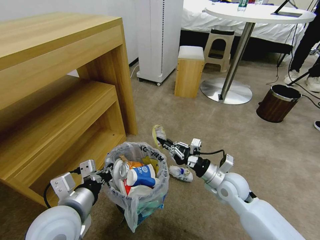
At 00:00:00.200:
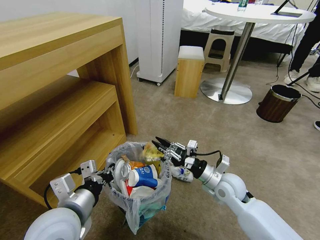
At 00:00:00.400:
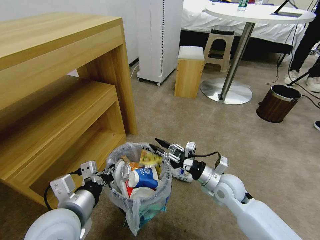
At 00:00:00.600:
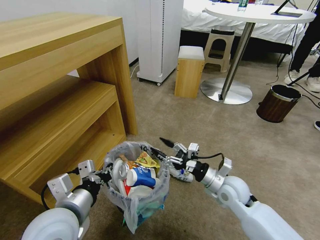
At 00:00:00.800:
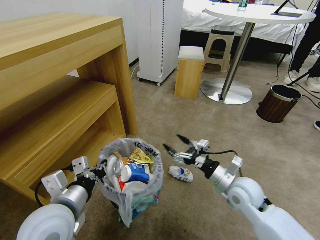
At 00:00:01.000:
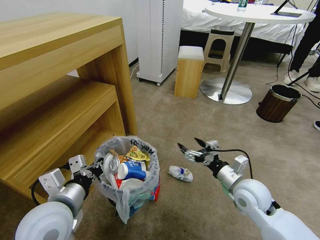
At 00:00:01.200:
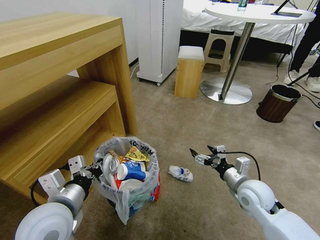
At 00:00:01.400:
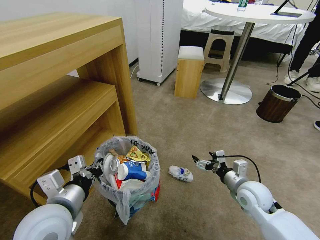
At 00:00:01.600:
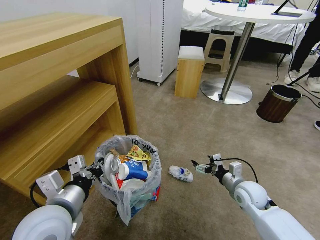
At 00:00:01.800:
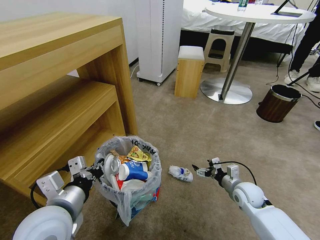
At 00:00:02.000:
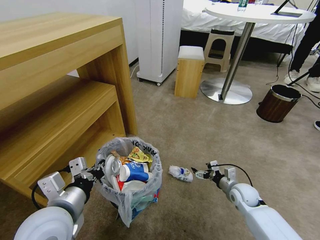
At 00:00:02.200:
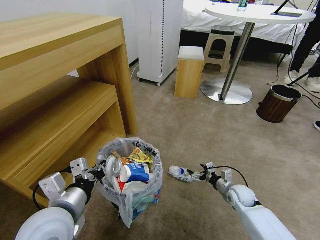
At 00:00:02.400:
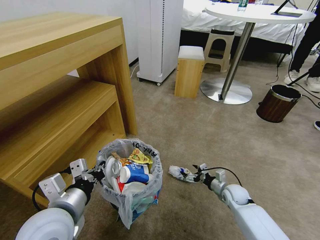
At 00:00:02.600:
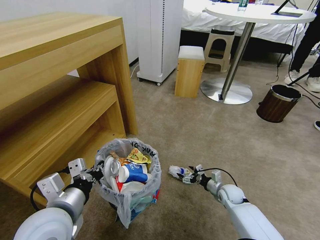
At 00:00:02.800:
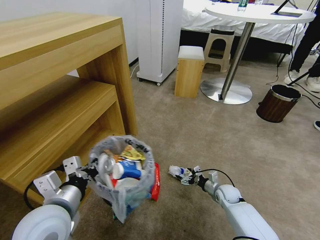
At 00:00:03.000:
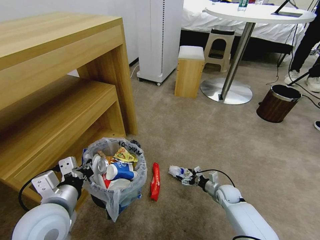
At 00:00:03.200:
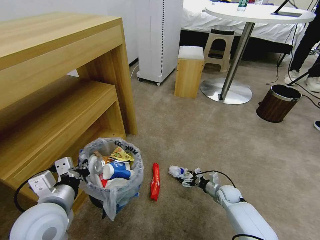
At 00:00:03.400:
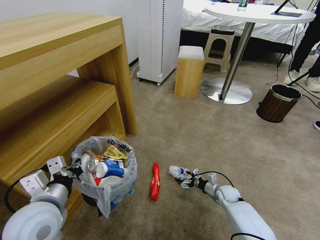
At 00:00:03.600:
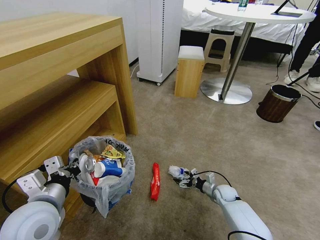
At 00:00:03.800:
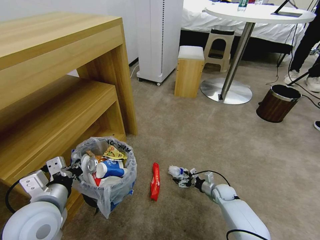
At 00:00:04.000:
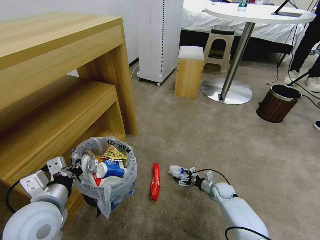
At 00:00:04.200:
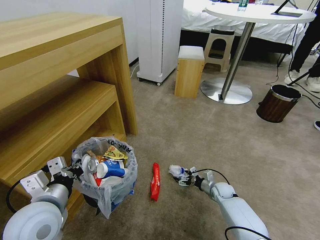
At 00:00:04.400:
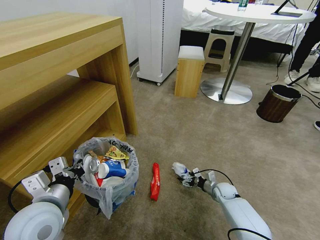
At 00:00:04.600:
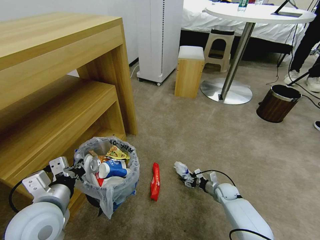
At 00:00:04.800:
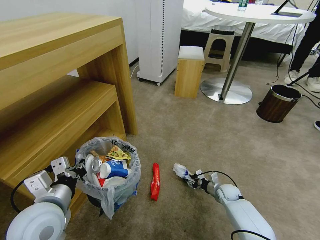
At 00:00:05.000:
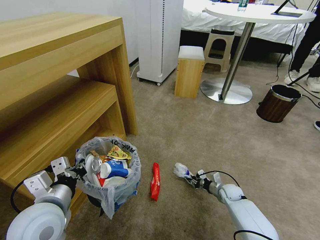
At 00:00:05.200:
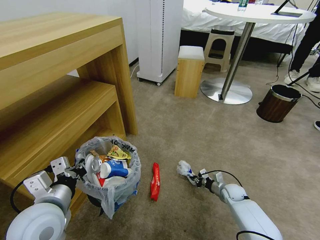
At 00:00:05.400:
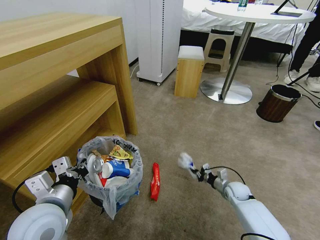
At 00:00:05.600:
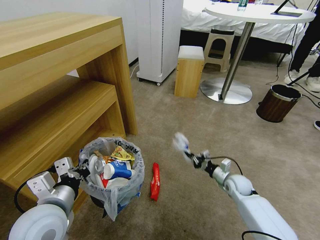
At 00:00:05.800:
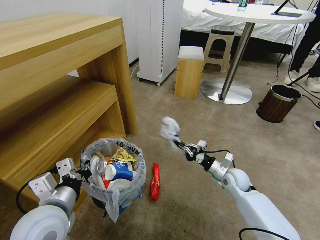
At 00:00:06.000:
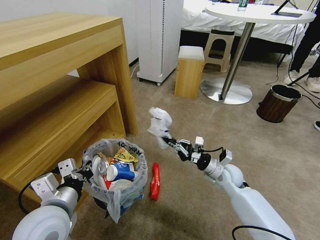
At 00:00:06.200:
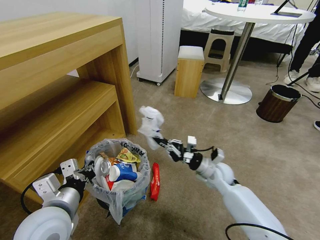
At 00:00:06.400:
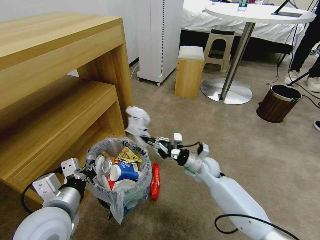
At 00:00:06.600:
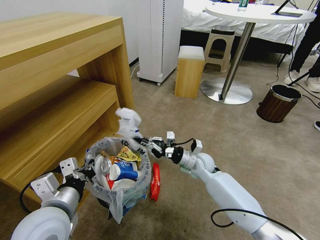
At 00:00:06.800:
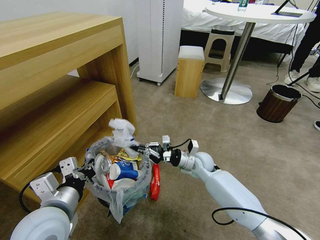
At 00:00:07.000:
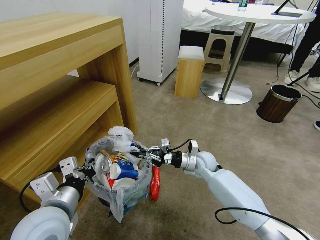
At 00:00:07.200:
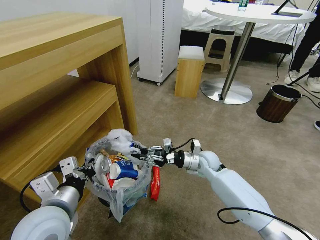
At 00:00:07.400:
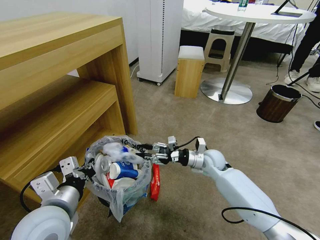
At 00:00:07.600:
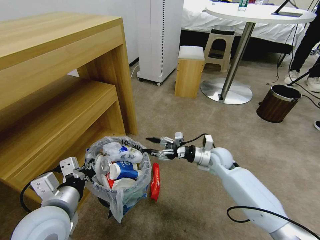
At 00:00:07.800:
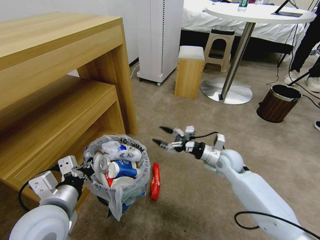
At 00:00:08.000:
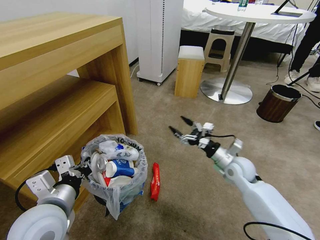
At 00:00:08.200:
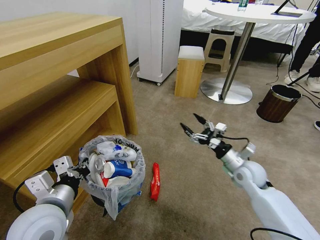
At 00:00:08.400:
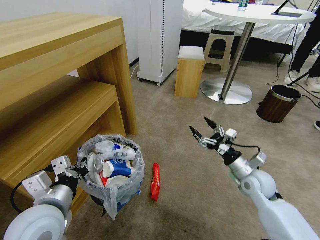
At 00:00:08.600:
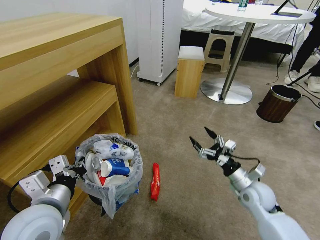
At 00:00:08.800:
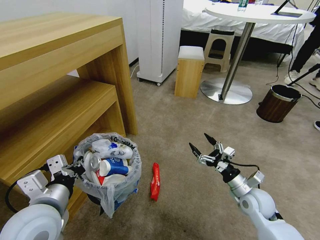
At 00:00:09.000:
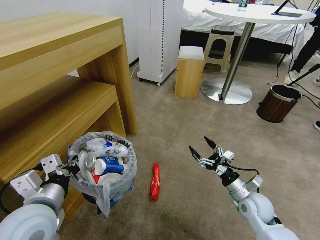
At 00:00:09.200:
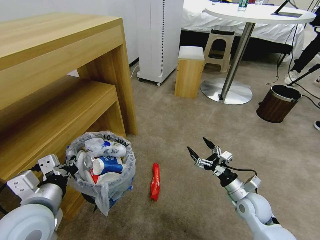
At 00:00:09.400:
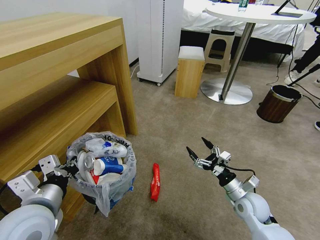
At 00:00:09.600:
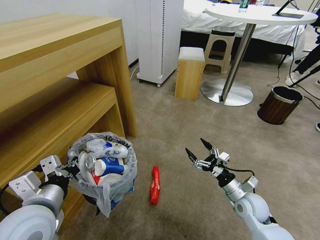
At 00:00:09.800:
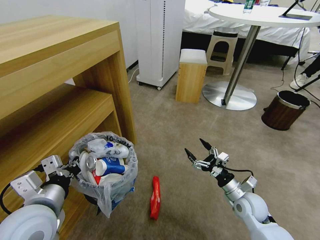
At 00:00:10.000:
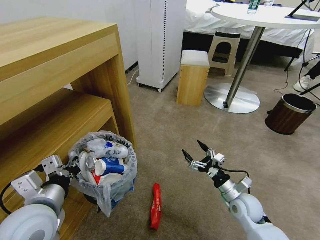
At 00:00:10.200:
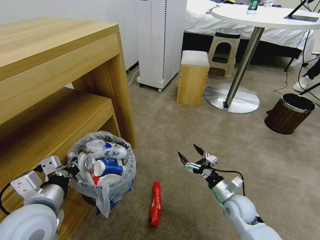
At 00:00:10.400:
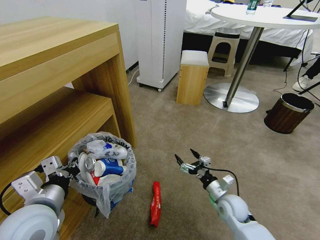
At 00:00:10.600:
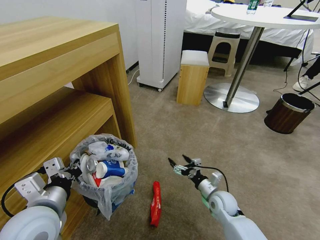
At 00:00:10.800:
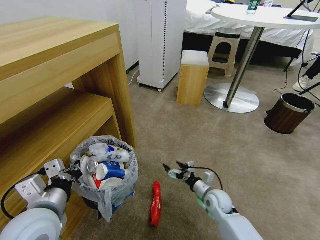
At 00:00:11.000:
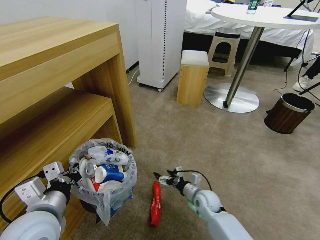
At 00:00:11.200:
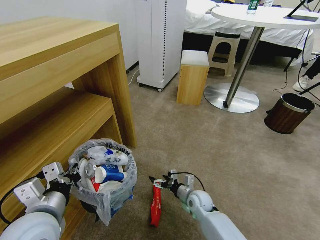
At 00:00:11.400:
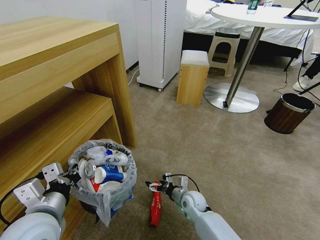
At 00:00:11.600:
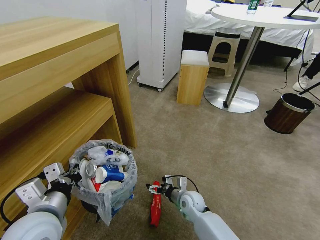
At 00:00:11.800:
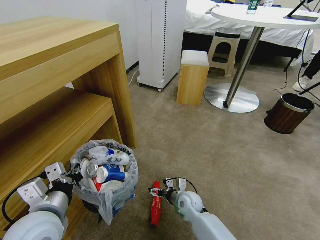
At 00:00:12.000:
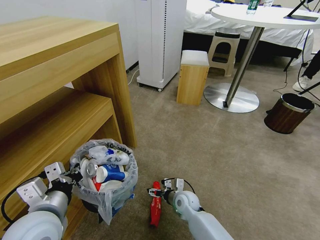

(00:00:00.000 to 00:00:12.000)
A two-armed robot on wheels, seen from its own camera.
Task of the whole recording: Pick up the trash bin and place the garbage on the floor into it.
00:00:00.000 - 00:00:01.600: The right gripper moves to the right, approximately 10 cm, and opens its fingers.
00:00:01.600 - 00:00:03.000: The right gripper heads downward, covering about 15 cm.
00:00:03.000 - 00:00:04.400: The grippers make only small movements.
00:00:04.400 - 00:00:06.000: The right gripper is displaced upward by about 20 cm, and closes.
00:00:06.000 - 00:00:07.600: The right gripper is displaced forward by approximately 5 cm, moves approximately 10 cm to the left and comes back, and opens.
00:00:07.600 - 00:00:09.000: The right gripper goes about 20 cm backward and to the right.
00:00:09.000 - 00:00:10.400: The right gripper goes roughly 10 cm to the left and downward.
00:00:10.400 - 00:00:12.000: The right gripper travels to the left and downward by roughly 15 cm.

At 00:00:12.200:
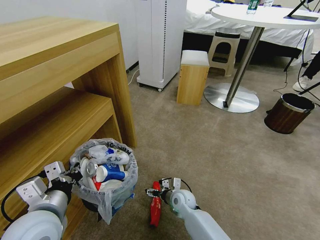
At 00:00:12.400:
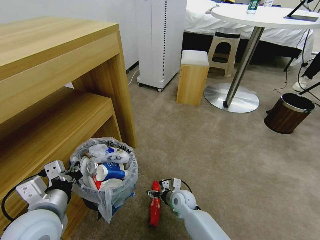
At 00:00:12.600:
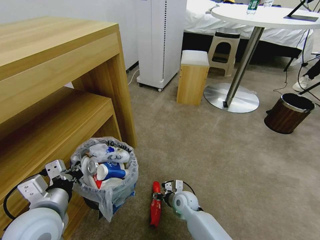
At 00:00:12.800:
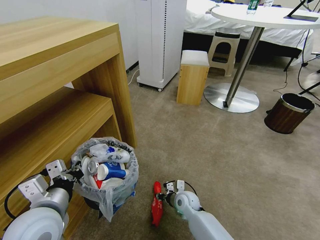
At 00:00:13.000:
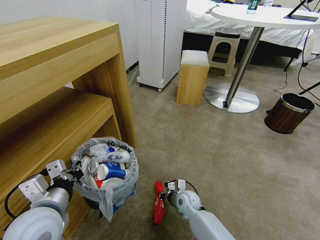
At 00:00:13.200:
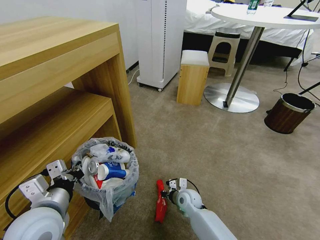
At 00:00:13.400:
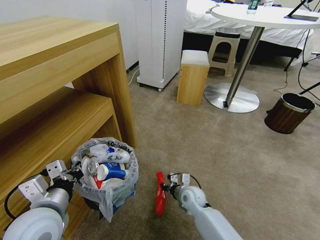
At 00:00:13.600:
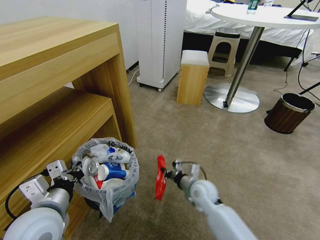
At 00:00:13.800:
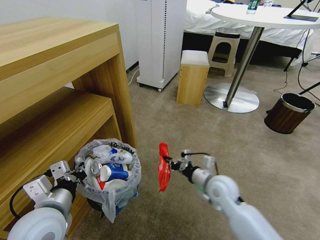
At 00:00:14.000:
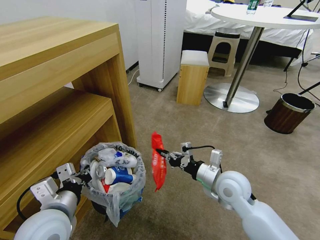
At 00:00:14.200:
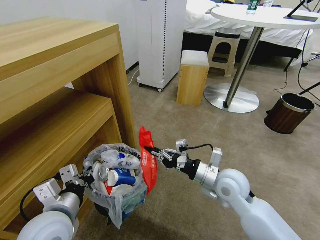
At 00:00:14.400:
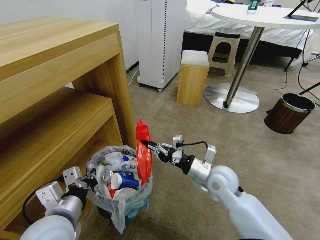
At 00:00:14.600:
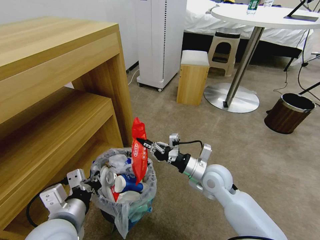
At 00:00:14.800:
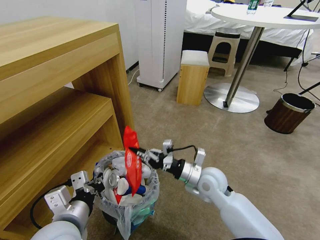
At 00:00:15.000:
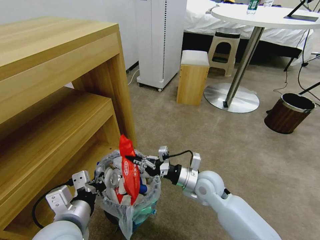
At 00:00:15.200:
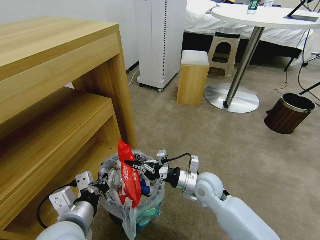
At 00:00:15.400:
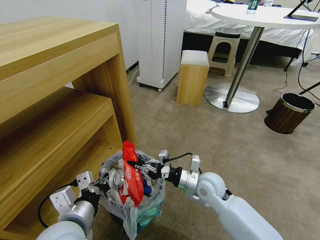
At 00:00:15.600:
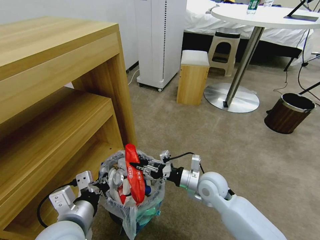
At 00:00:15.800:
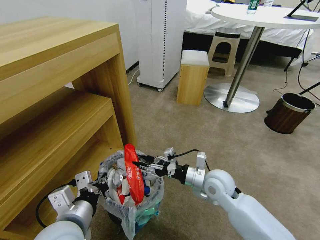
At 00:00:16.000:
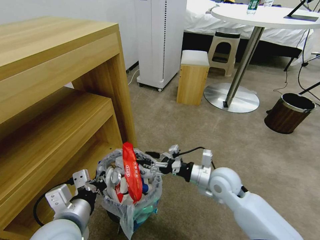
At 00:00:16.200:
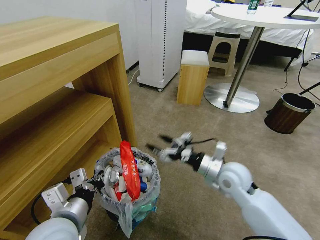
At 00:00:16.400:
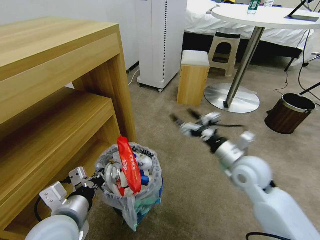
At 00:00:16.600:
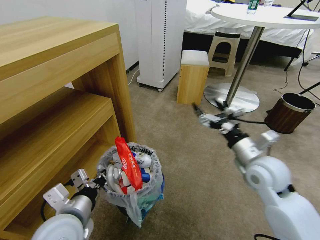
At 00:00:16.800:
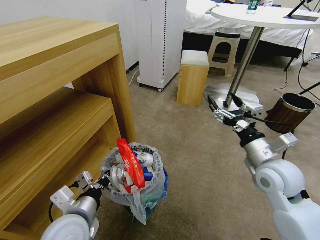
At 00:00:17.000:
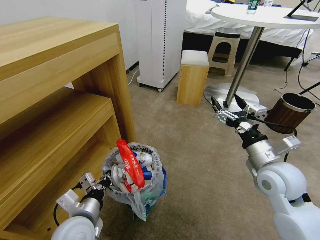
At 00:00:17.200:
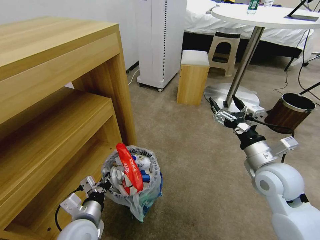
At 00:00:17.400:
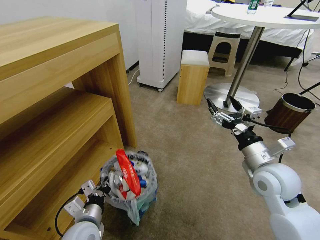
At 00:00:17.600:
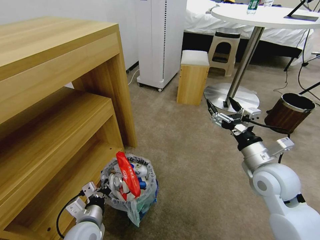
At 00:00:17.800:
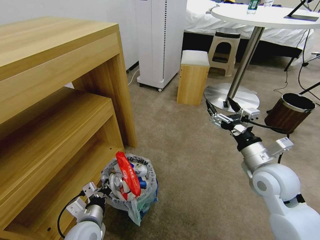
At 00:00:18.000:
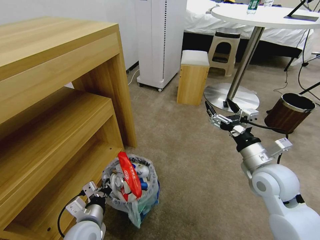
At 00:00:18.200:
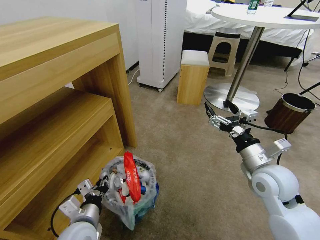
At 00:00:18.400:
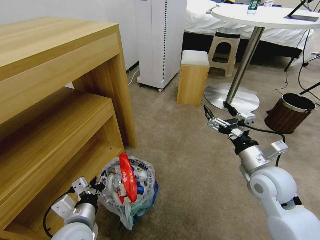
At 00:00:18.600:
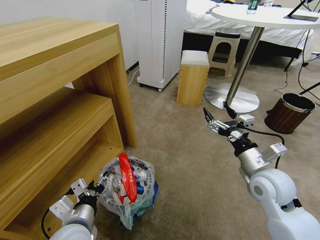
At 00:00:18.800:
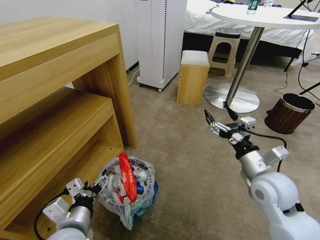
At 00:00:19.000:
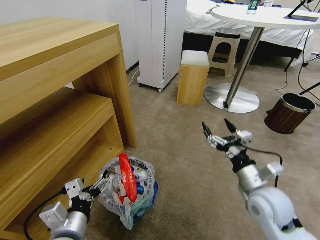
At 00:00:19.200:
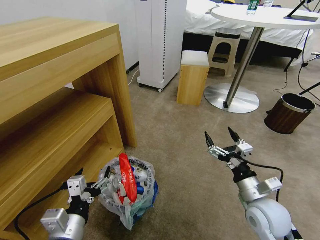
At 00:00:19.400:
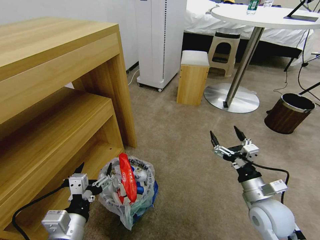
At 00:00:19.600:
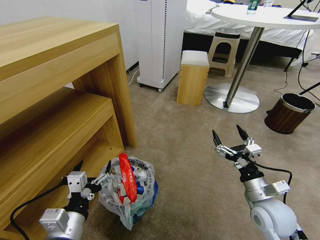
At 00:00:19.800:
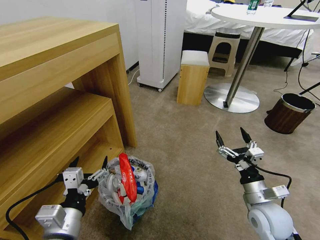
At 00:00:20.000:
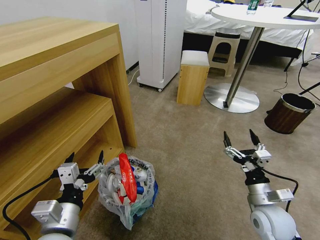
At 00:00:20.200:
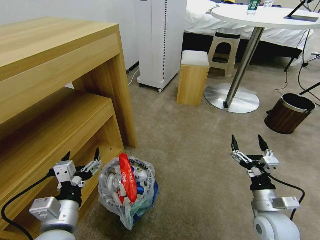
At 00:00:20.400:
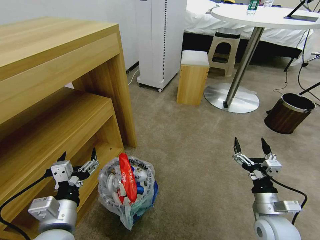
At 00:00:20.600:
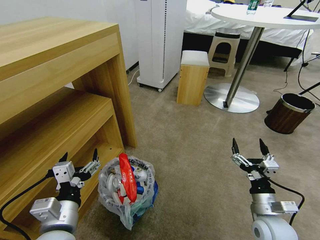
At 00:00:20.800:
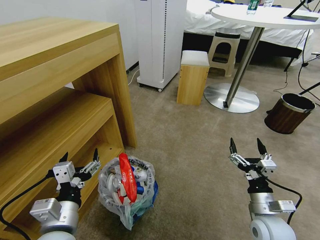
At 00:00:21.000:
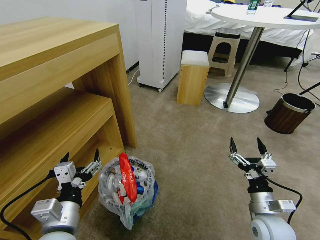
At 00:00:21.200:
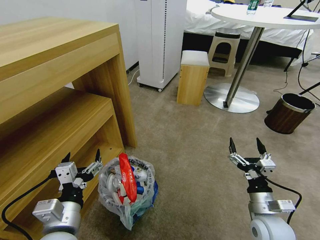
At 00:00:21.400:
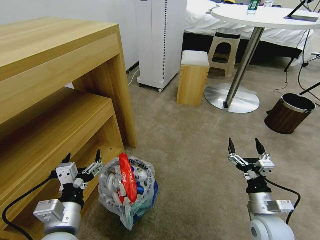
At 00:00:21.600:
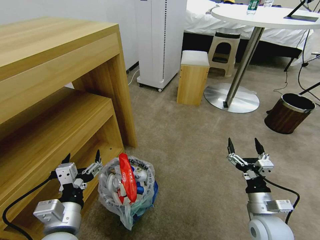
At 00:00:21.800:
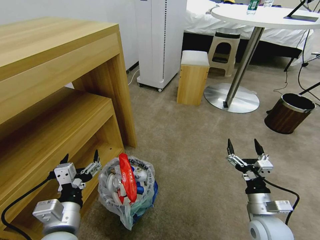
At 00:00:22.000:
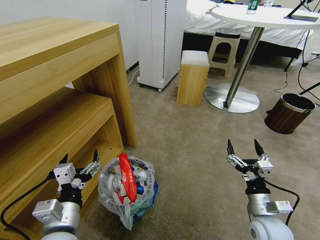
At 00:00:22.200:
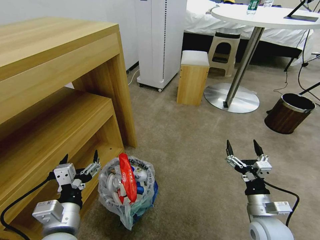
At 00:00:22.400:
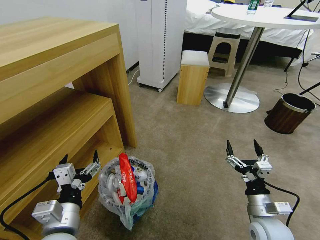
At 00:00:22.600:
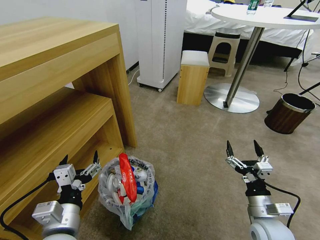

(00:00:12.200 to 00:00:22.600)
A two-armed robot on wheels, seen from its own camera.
Task of the whole recording: Pick up the trash bin and place the garbage on the floor into it.
00:00:12.200 - 00:00:13.600: The right gripper moves upward and to the right, approximately 10 cm, and closes up.
00:00:13.600 - 00:00:15.200: The right gripper shifts roughly 5 cm upward; the left gripper goes roughly 5 cm to the right.
00:00:15.200 - 00:00:16.600: The right gripper moves to the right and upward, roughly 20 cm, and opens.
00:00:16.600 - 00:00:18.200: The left gripper travels downward by roughly 10 cm.
00:00:18.200 - 00:00:19.600: The right gripper moves downward and backward, some 10 cm. The left gripper goes roughly 10 cm upward and backward, and opens.
00:00:19.600 - 00:00:21.200: There are only small adjustments of the grippers.
00:00:21.200 - 00:00:22.600: Neither gripper changes place.
